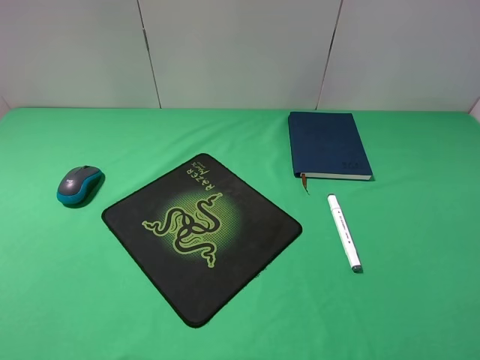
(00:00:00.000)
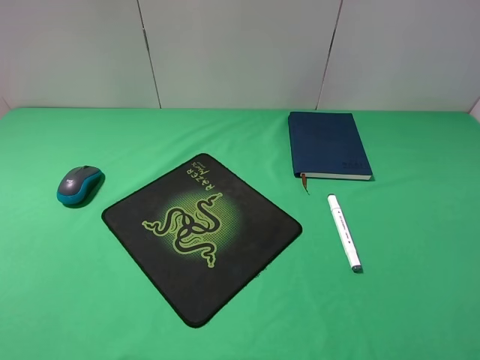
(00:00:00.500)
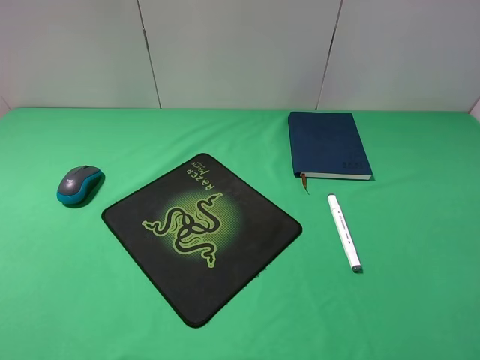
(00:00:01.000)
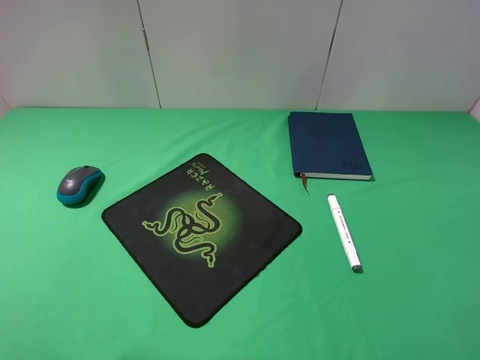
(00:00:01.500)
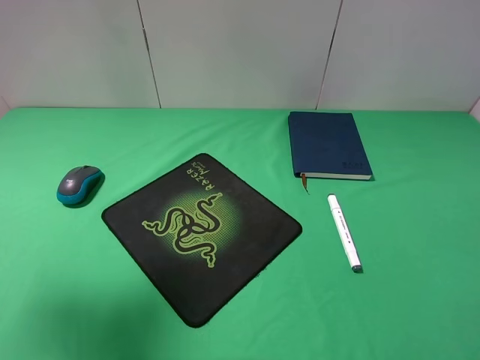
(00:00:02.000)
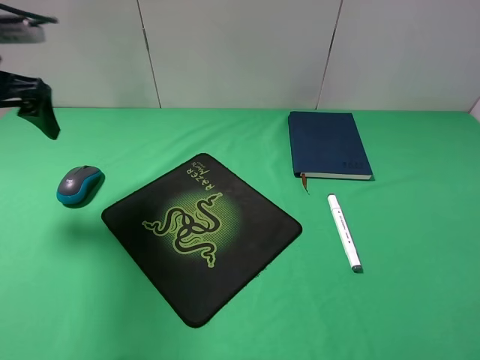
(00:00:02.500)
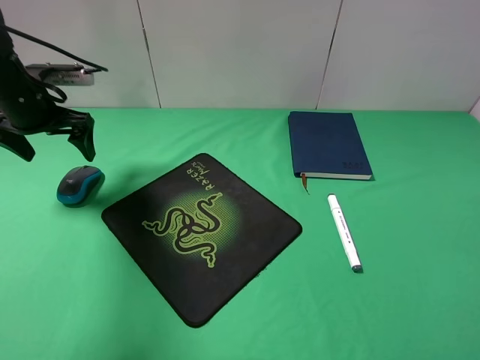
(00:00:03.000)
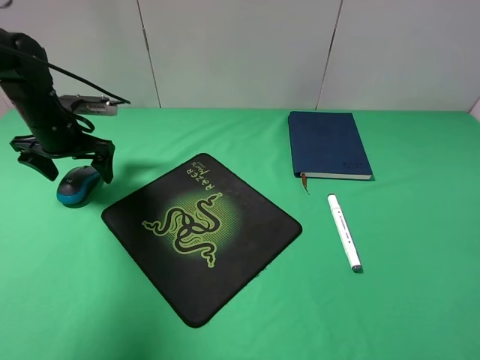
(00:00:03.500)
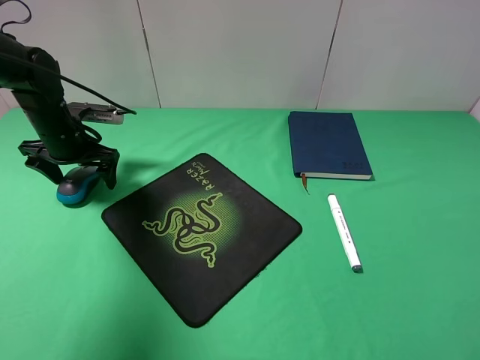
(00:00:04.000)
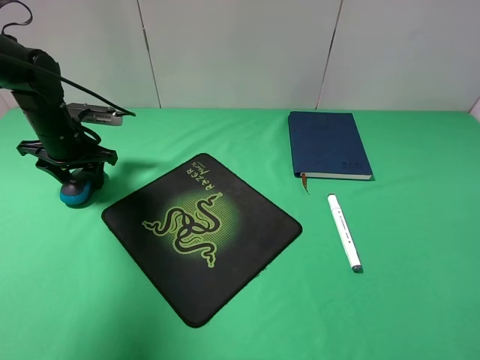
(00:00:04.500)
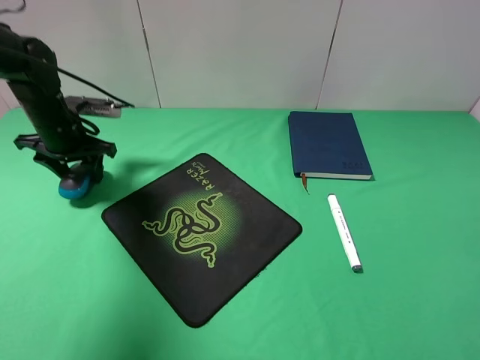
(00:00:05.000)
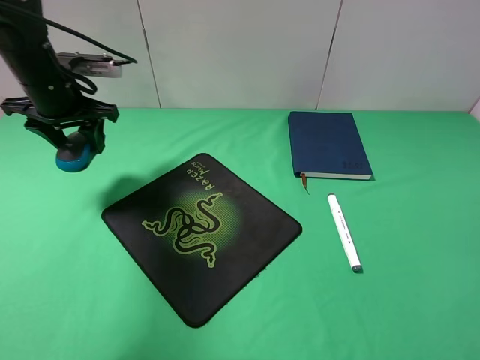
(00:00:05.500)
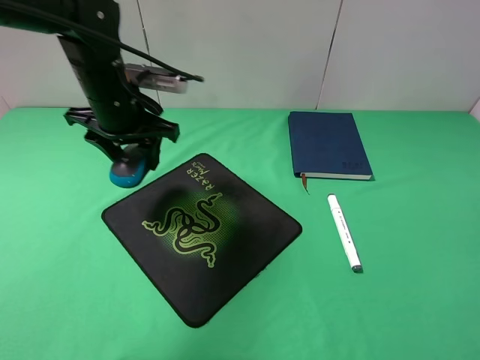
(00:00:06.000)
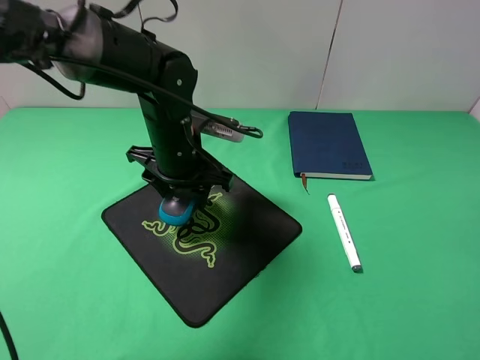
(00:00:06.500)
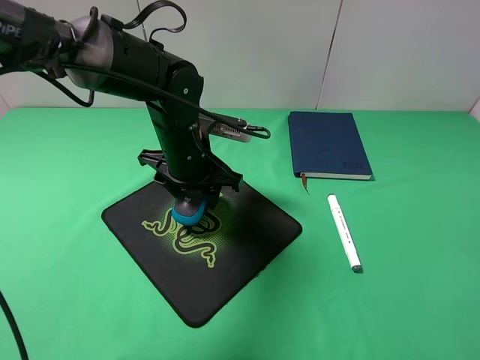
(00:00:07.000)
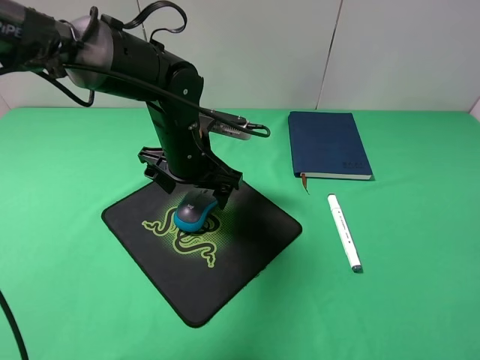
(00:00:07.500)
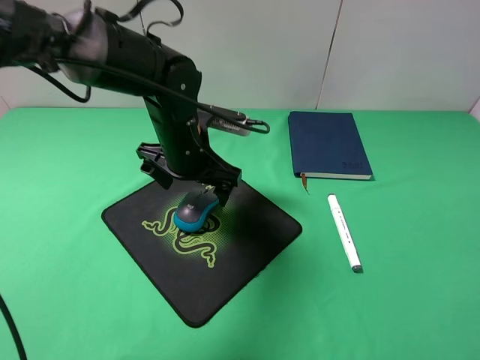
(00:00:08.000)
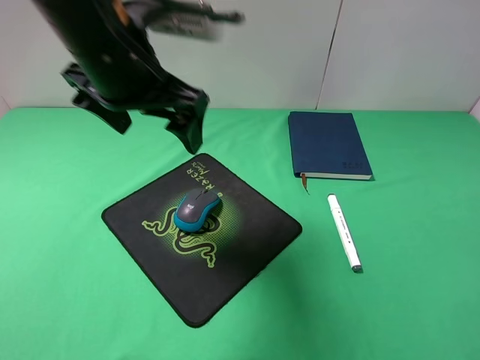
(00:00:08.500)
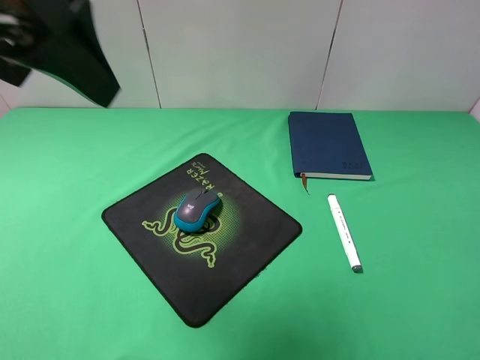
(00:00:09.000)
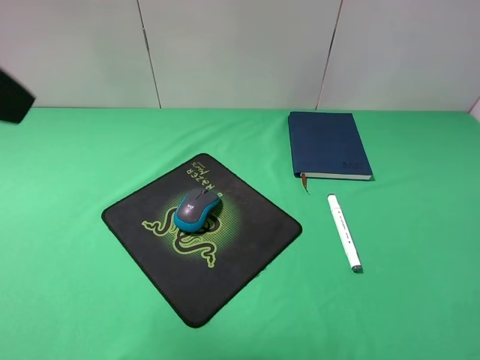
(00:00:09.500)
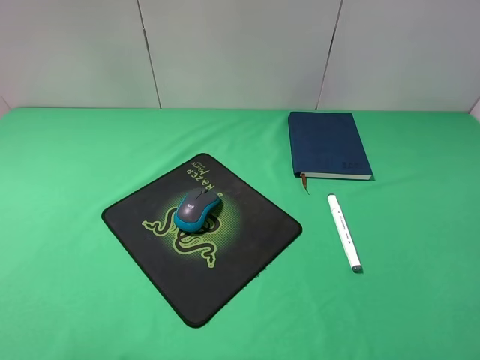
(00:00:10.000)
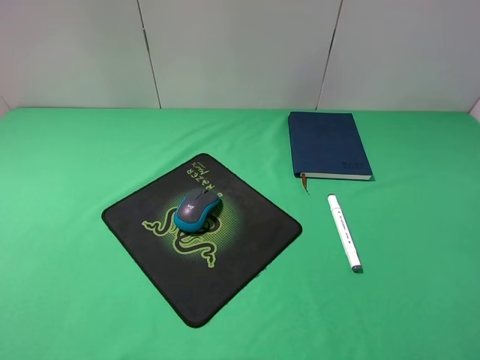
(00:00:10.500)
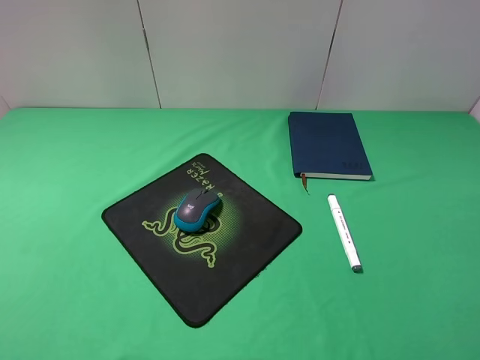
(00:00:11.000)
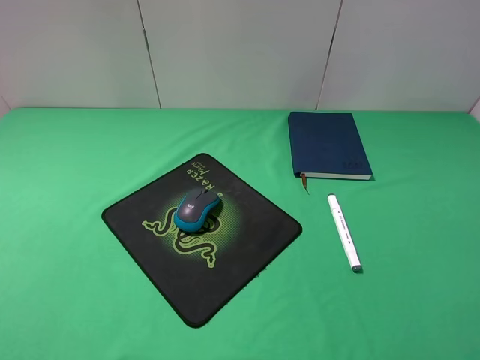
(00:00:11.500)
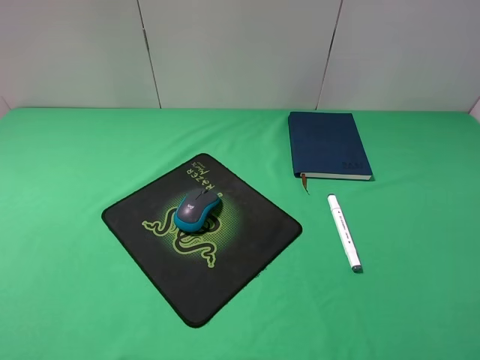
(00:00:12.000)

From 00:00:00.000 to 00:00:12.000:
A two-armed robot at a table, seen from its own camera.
Step, from 00:00:00.000 to 00:00:04.500: Grasp the mouse with the left gripper.
Step, from 00:00:05.000 to 00:00:07.500: Place the mouse on the mouse pad with the left gripper.
From 00:00:00.000 to 00:00:02.000: The left gripper shifts approximately 20 cm forward.
From 00:00:02.000 to 00:00:04.000: The left gripper shifts approximately 30 cm downward and forward.
From 00:00:04.000 to 00:00:06.000: The left gripper heads to the right and upward, covering approximately 15 cm, and closes its fingers.
From 00:00:06.000 to 00:00:08.000: The left gripper is displaced to the right by roughly 10 cm, and opens up.
From 00:00:08.000 to 00:00:10.000: The left gripper heads backward, to the left and upward, covering approximately 40 cm.

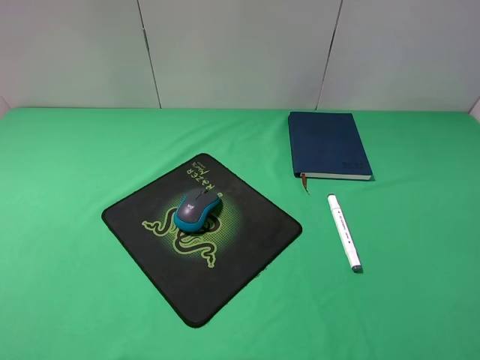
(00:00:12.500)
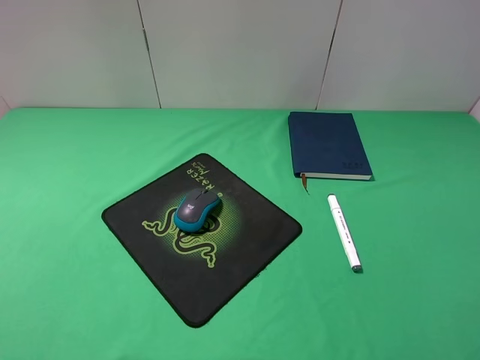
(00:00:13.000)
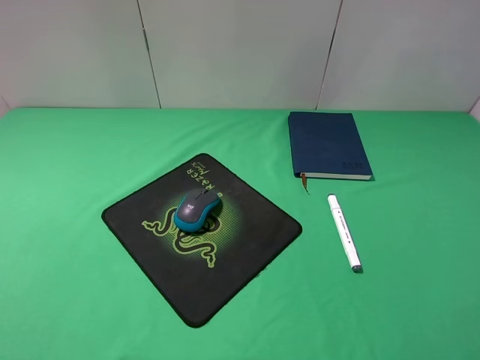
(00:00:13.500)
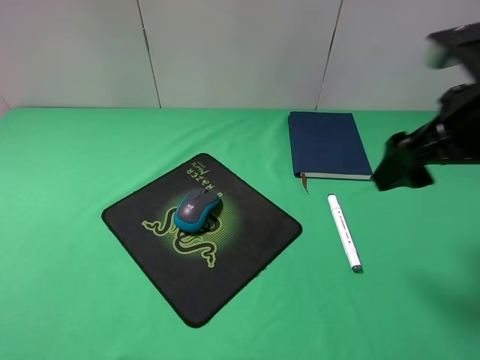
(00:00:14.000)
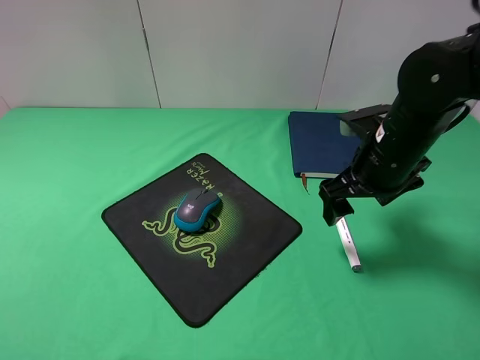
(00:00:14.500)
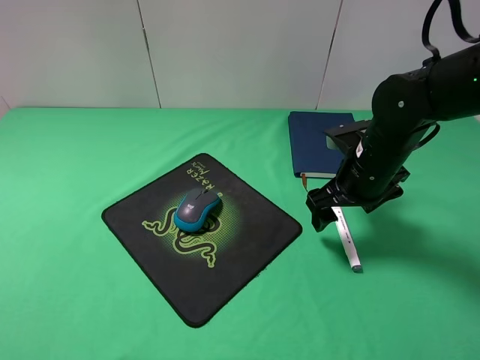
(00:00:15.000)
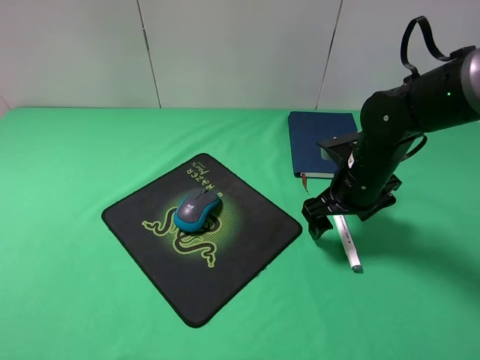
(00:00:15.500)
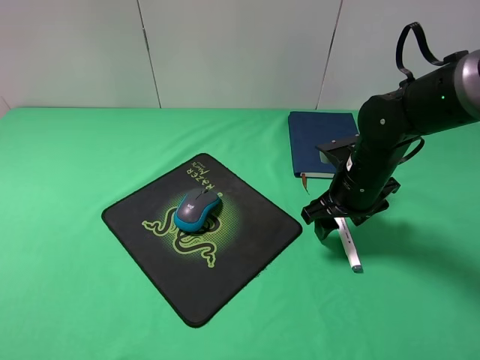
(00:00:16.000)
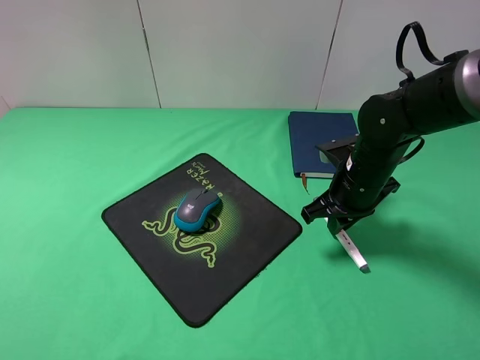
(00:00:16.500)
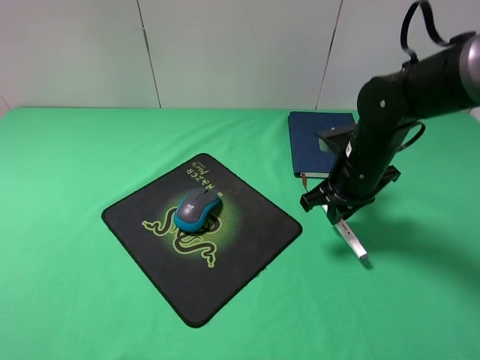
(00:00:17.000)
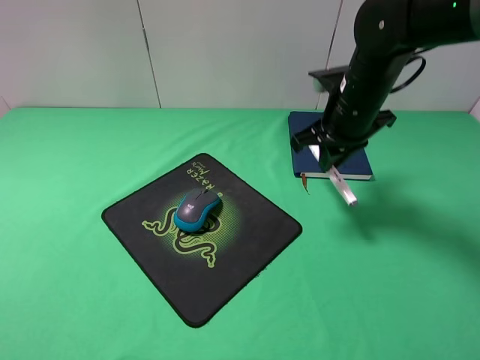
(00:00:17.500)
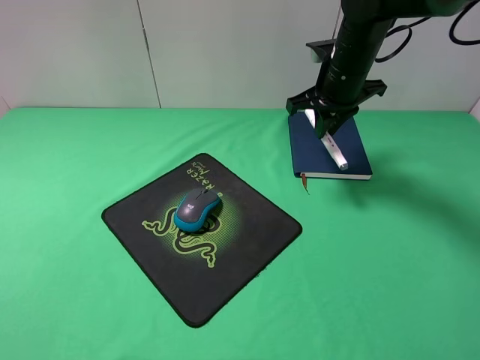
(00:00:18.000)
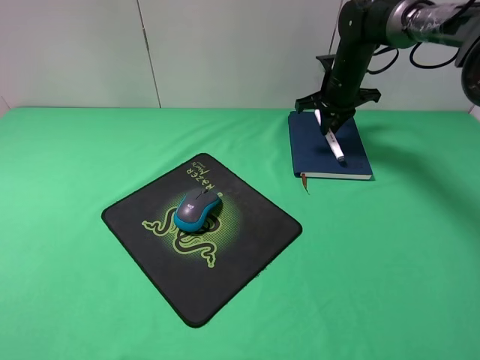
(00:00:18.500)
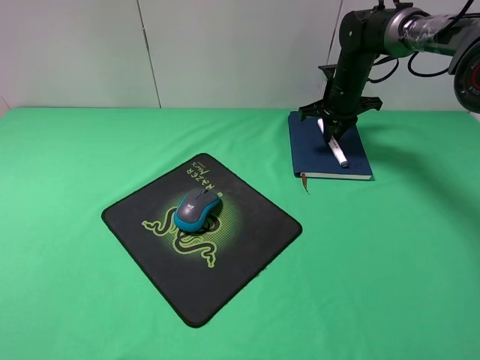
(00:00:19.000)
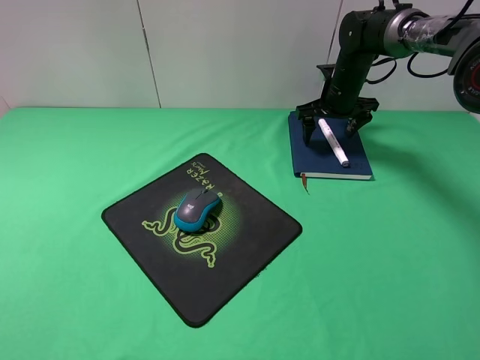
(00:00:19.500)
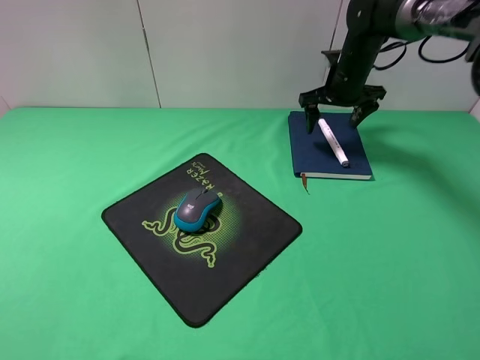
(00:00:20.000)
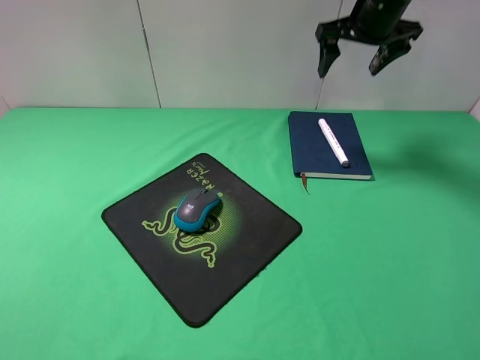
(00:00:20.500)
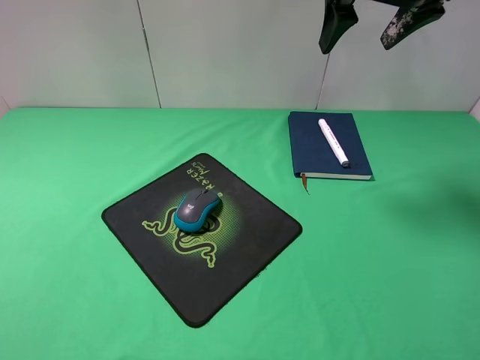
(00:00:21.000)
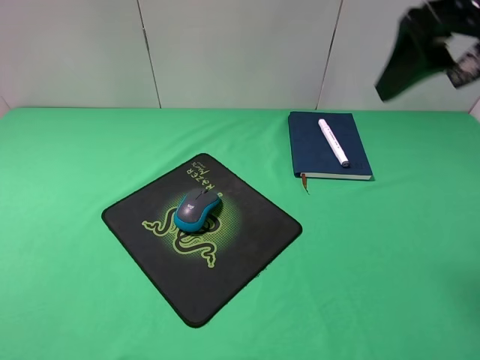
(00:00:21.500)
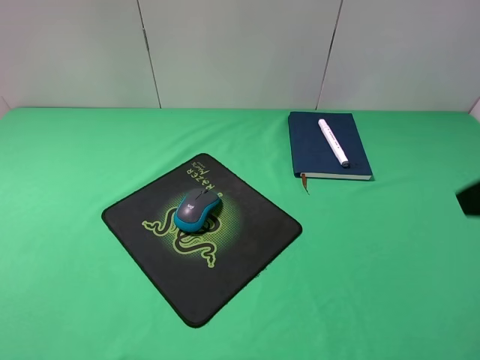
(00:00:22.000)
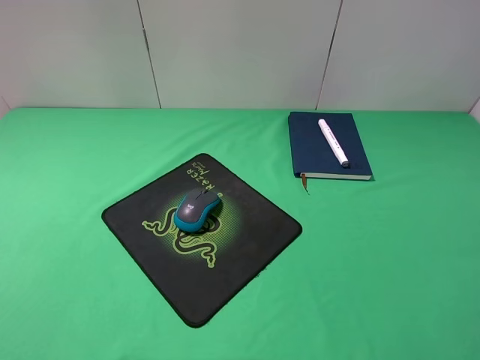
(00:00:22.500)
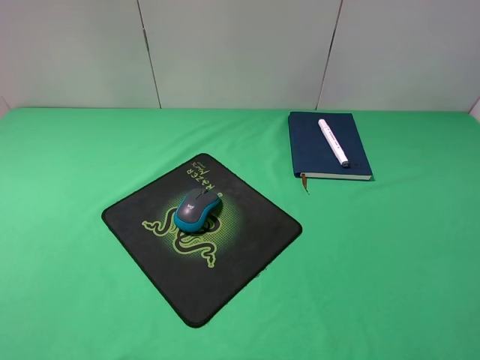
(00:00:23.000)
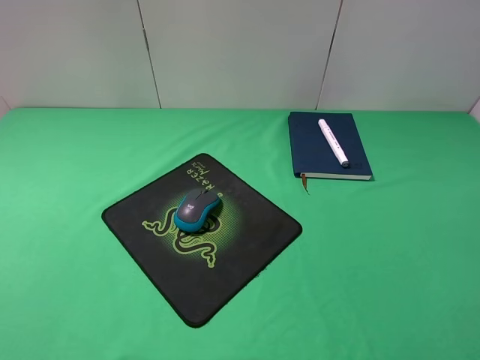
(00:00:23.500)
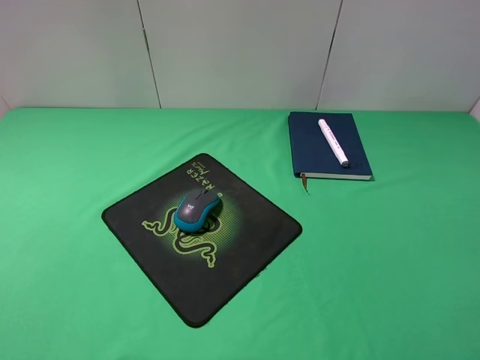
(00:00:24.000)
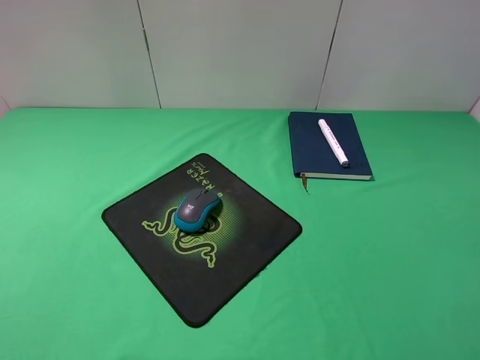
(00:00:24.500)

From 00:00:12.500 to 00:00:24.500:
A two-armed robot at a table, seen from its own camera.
Step, from 00:00:12.500 to 00:00:16.000: Grasp the marker with the right gripper.
Step, from 00:00:16.500 to 00:00:19.500: Place the marker on the notebook with the right gripper.
From 00:00:12.500 to 00:00:14.500: The right gripper shifts about 30 cm forward and to the left.
From 00:00:14.500 to 00:00:16.500: The right gripper is displaced downward by roughly 5 cm, and closes up.
From 00:00:16.500 to 00:00:18.500: The right gripper goes some 20 cm forward.
From 00:00:18.500 to 00:00:20.500: The right gripper shifts approximately 15 cm upward, and opens up.
From 00:00:20.500 to 00:00:22.500: The right gripper is displaced backward by about 40 cm.
